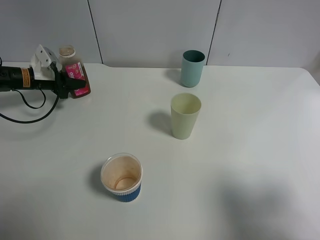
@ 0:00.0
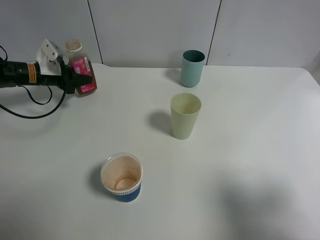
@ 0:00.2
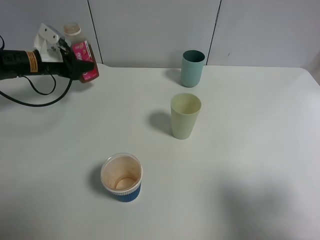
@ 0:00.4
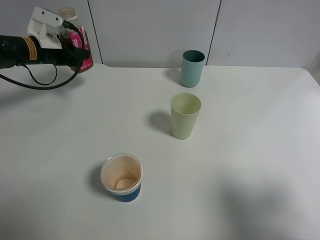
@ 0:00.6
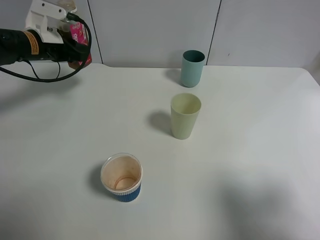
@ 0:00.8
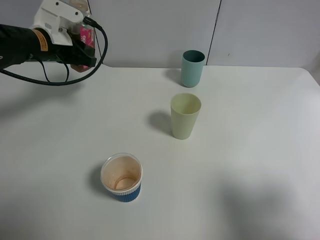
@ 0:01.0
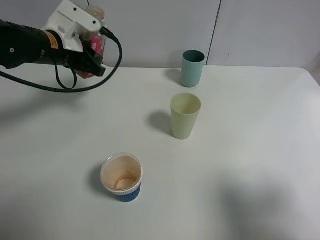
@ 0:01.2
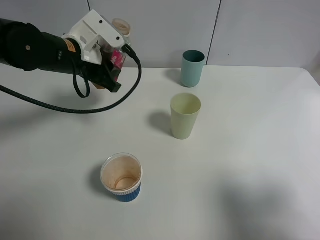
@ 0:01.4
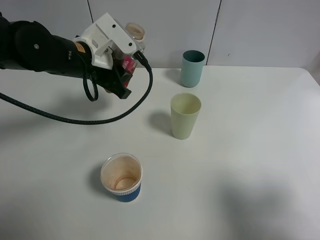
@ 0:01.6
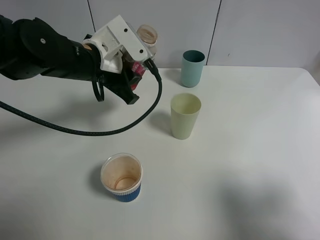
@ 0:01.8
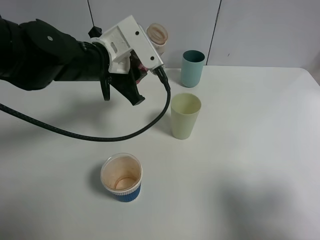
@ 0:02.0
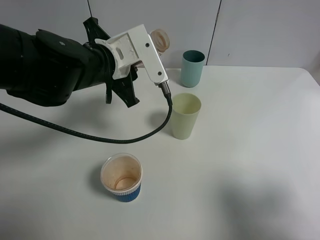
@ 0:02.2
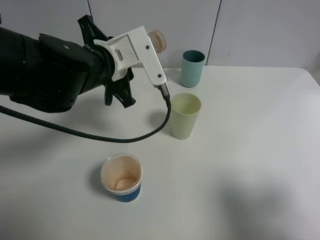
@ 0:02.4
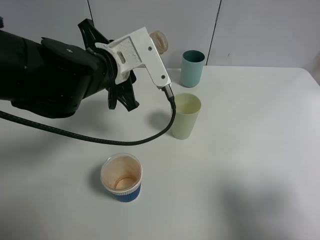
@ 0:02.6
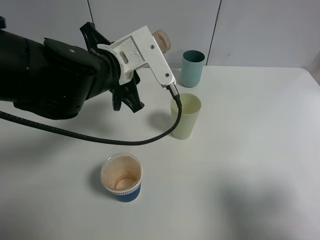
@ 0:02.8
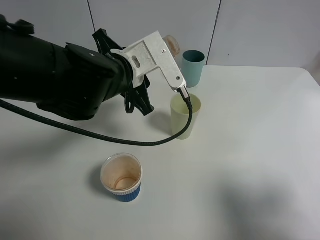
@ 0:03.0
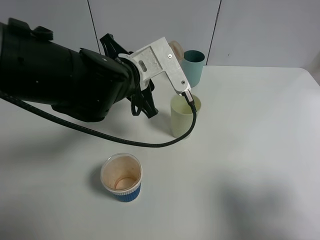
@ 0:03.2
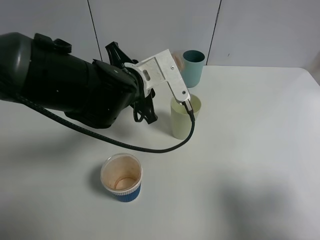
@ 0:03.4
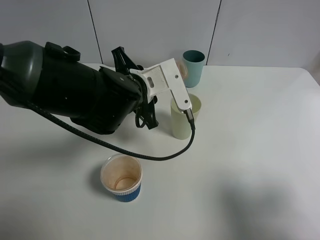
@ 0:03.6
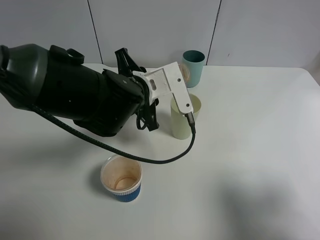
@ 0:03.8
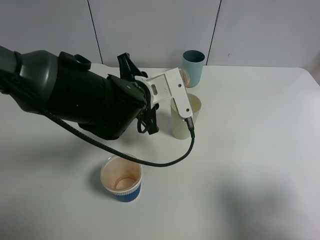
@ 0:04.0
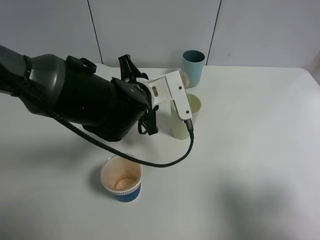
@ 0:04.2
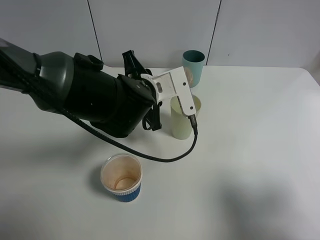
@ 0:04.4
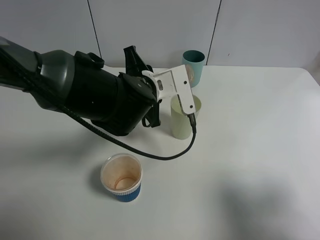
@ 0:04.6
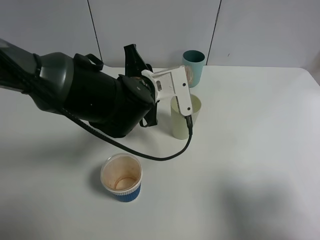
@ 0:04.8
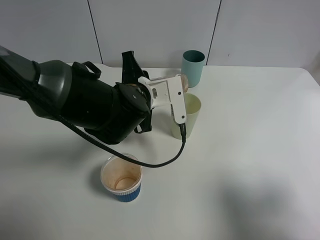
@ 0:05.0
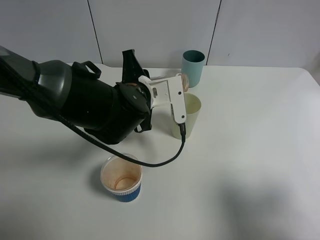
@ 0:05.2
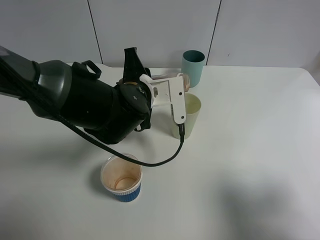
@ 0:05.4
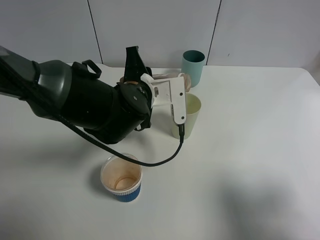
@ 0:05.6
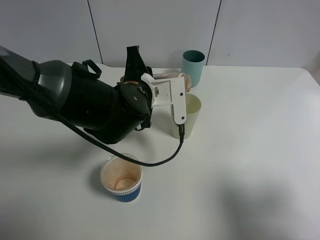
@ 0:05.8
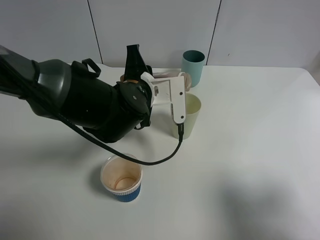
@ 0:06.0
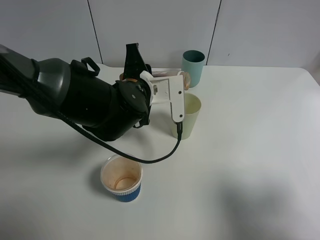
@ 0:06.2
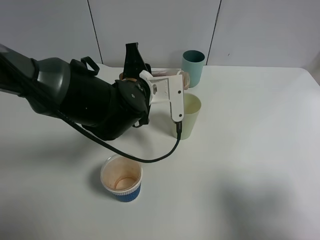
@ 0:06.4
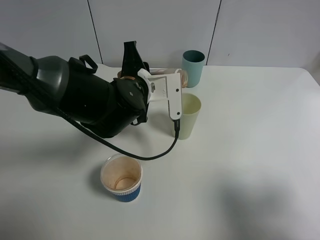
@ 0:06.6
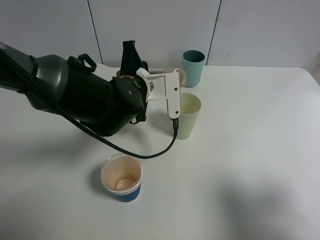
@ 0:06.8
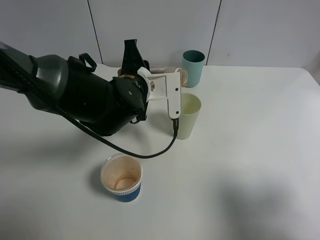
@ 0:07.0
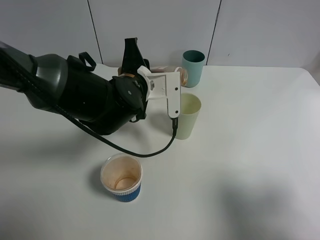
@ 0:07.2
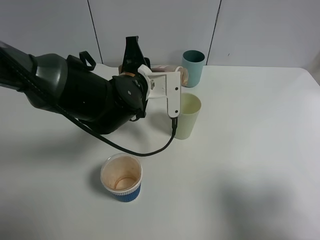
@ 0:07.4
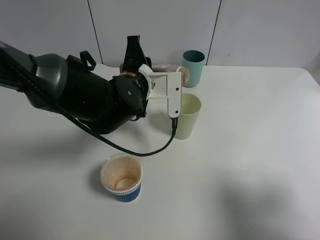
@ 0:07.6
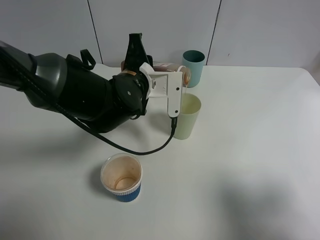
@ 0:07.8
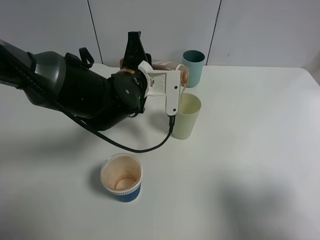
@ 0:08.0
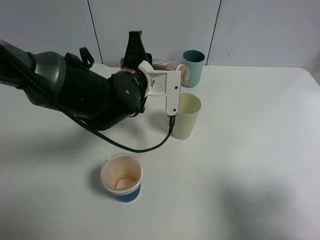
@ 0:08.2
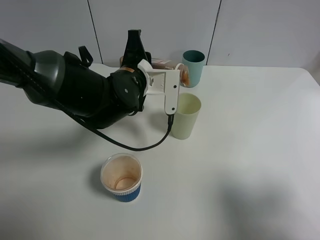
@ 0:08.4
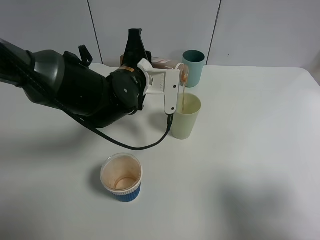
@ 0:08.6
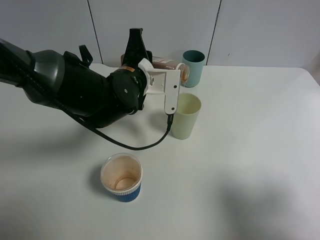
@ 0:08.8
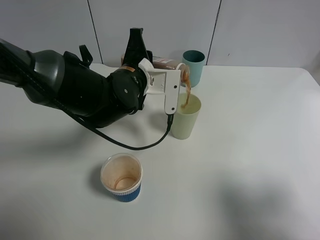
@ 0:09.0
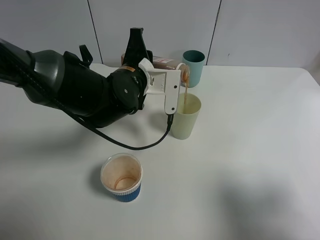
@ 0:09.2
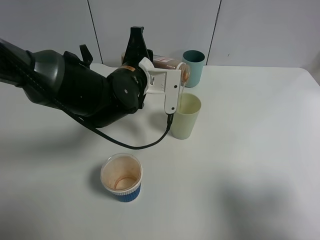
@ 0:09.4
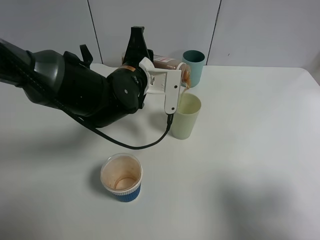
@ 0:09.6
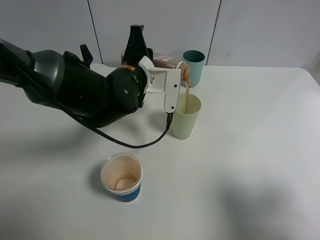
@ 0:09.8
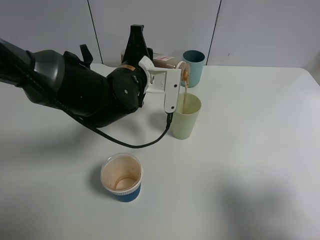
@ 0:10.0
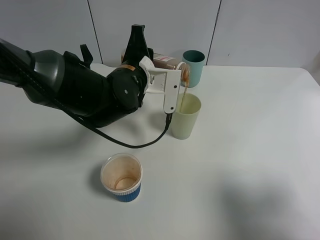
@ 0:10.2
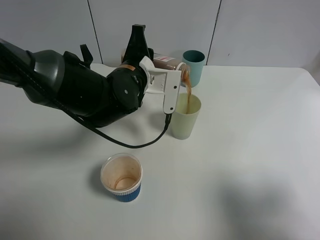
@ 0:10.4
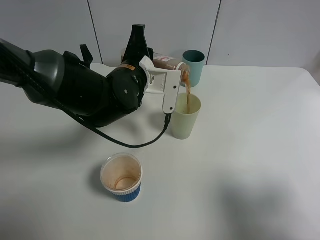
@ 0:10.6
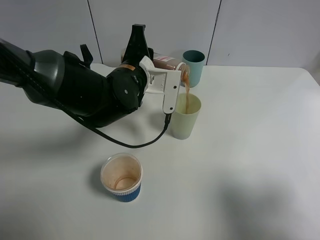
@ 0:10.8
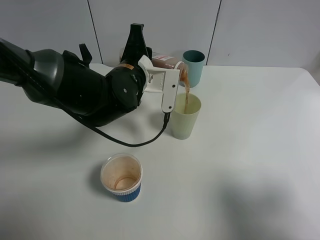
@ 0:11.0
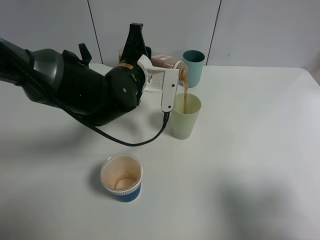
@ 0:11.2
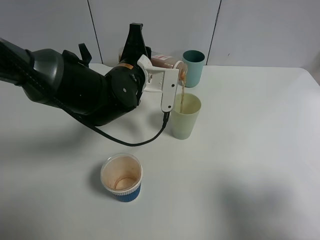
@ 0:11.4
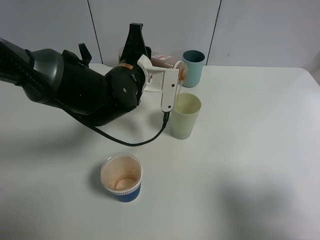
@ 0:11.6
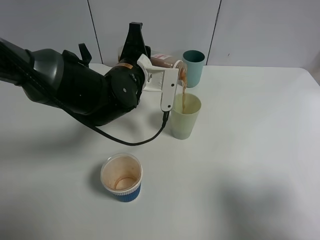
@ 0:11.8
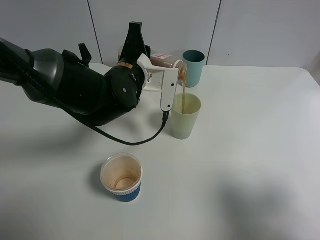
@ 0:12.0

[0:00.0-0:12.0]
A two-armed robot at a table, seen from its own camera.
Task of the whole recording: use a gripper to hold the bottle of the drink and pour it into a random cup.
0:00.0 to 0:01.6: The left gripper moves to the right, upward and backward, roughly 30 cm.
0:01.6 to 0:03.0: The left gripper heads to the right, covering roughly 5 cm.
0:03.0 to 0:04.4: The left gripper ends up some 5 cm from where it was.
0:04.4 to 0:06.0: The grippers make only small movements.
0:06.0 to 0:09.0: There are only small adjustments of the grippers.
0:09.0 to 0:10.4: Both grippers stay put.
0:10.4 to 0:12.0: Neither gripper changes place.

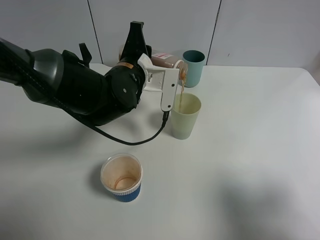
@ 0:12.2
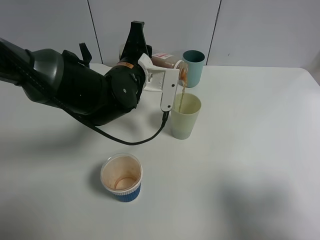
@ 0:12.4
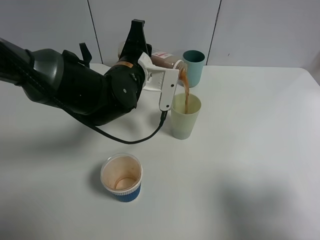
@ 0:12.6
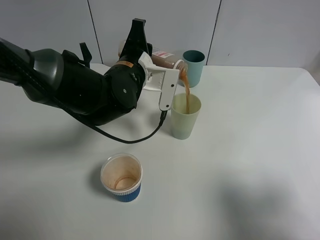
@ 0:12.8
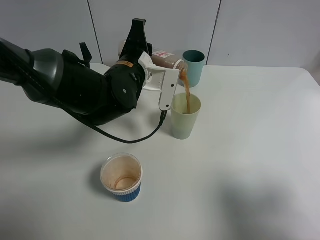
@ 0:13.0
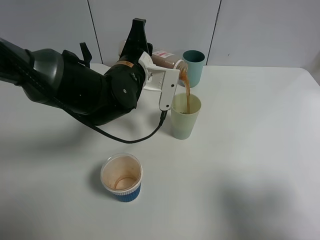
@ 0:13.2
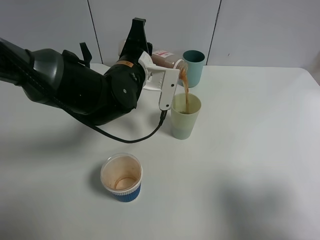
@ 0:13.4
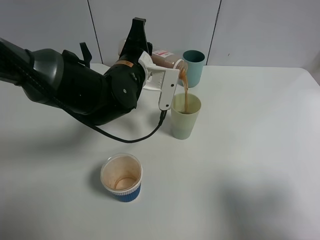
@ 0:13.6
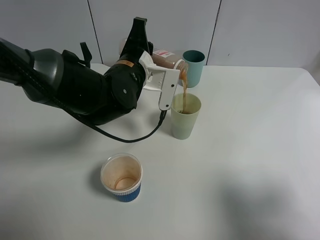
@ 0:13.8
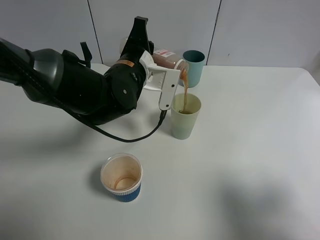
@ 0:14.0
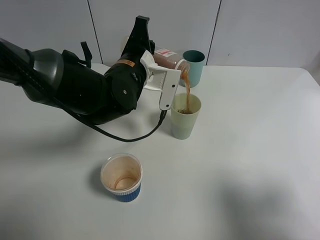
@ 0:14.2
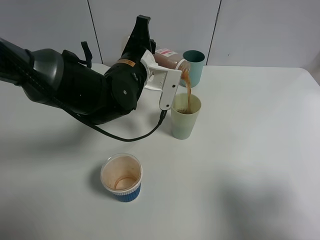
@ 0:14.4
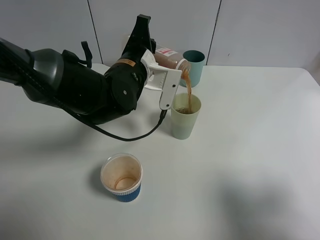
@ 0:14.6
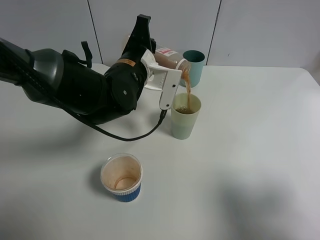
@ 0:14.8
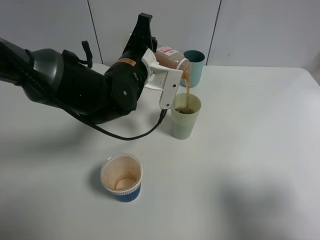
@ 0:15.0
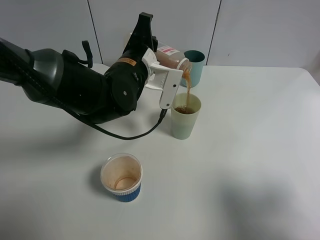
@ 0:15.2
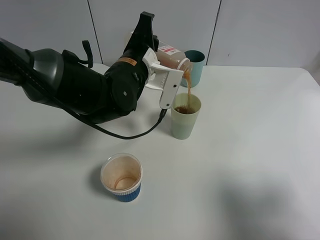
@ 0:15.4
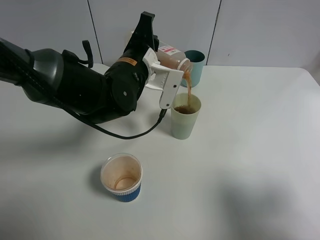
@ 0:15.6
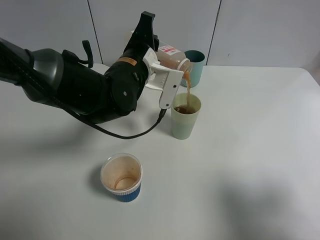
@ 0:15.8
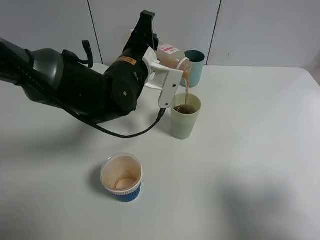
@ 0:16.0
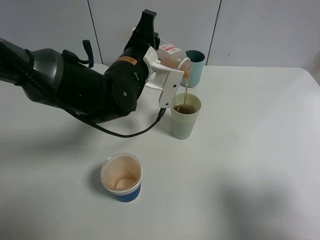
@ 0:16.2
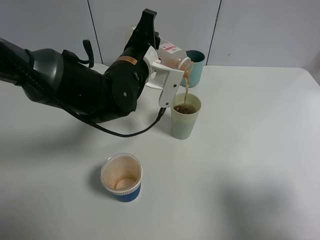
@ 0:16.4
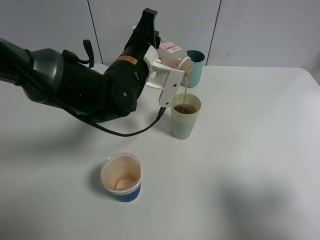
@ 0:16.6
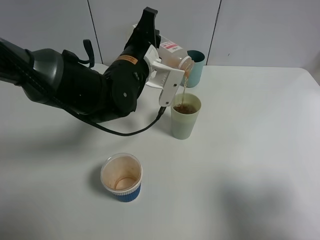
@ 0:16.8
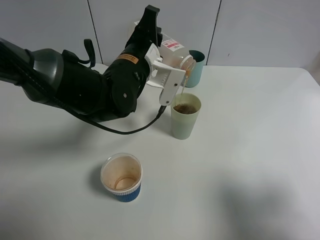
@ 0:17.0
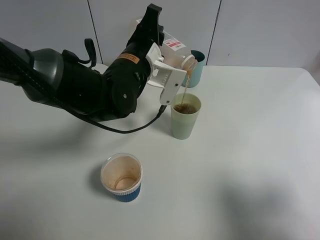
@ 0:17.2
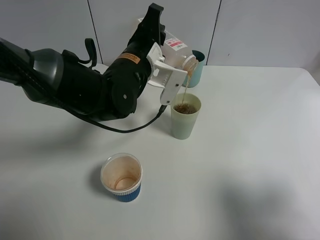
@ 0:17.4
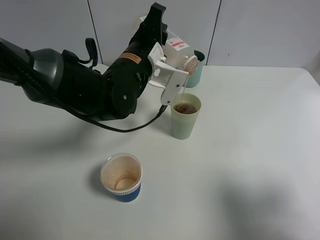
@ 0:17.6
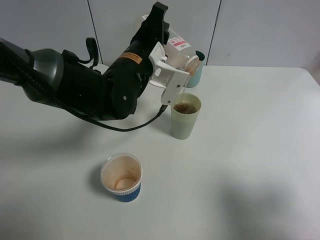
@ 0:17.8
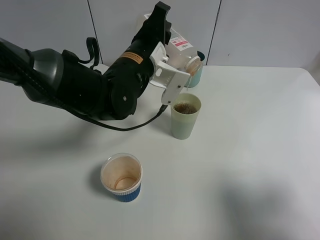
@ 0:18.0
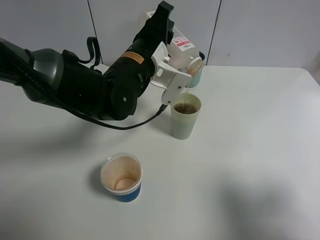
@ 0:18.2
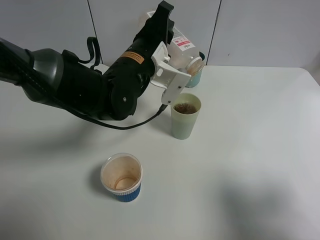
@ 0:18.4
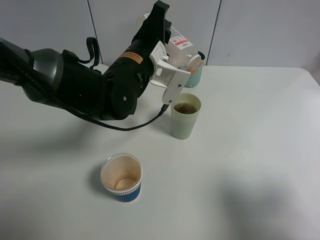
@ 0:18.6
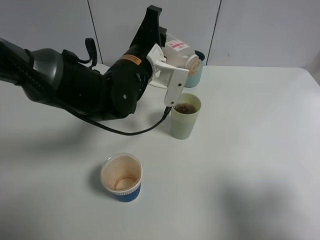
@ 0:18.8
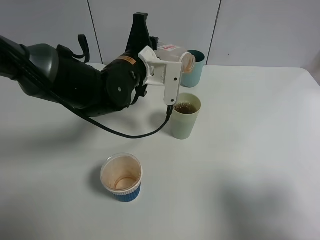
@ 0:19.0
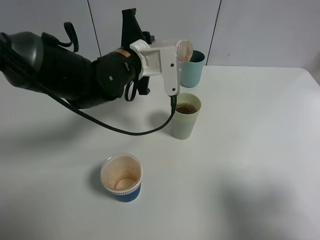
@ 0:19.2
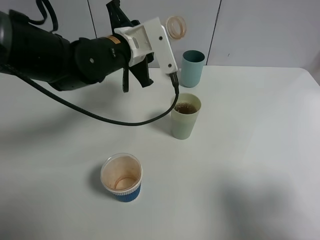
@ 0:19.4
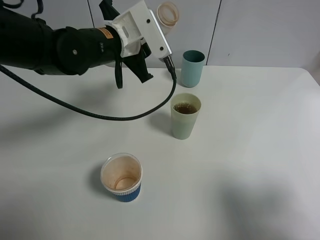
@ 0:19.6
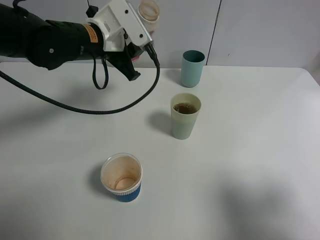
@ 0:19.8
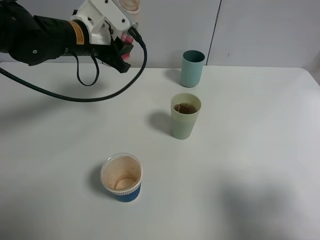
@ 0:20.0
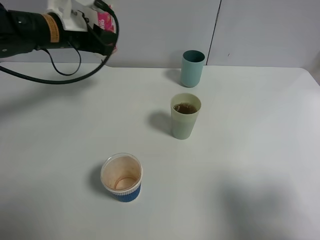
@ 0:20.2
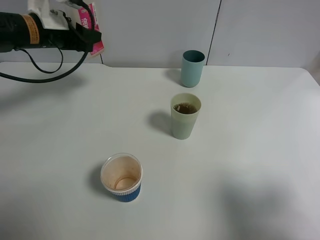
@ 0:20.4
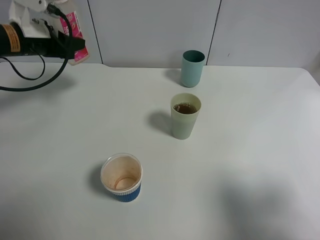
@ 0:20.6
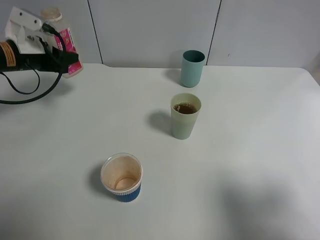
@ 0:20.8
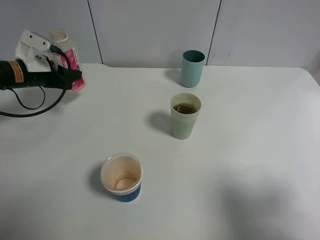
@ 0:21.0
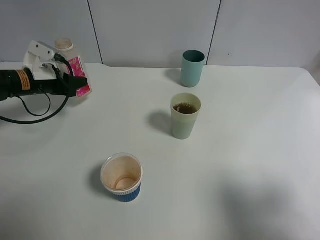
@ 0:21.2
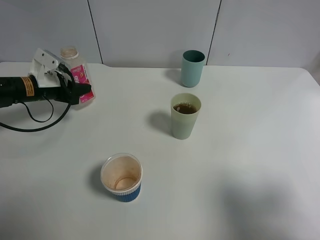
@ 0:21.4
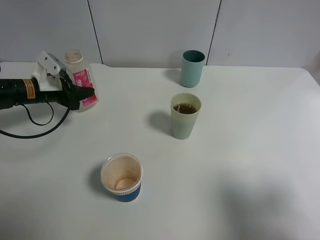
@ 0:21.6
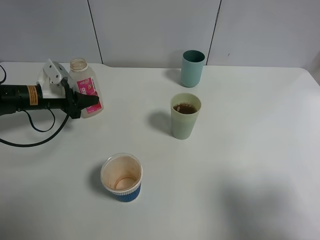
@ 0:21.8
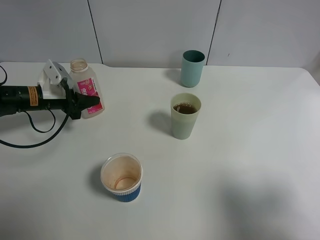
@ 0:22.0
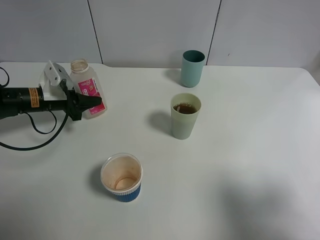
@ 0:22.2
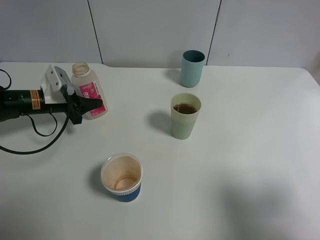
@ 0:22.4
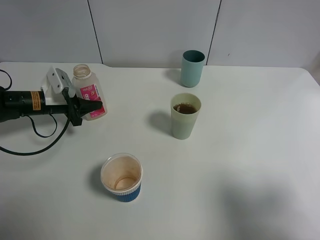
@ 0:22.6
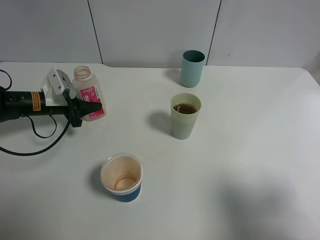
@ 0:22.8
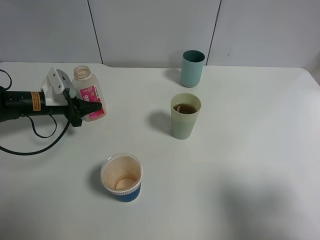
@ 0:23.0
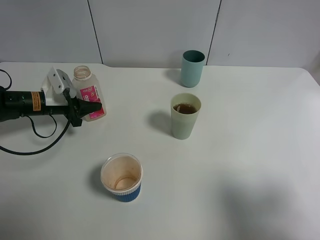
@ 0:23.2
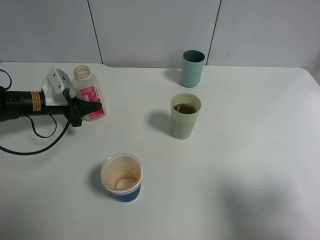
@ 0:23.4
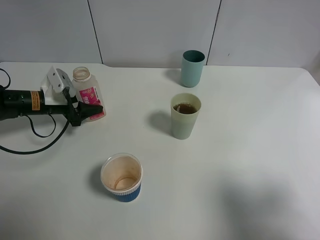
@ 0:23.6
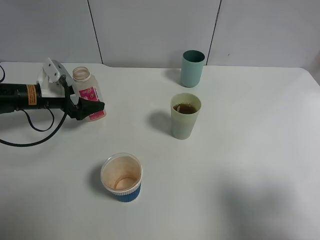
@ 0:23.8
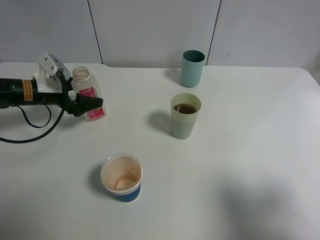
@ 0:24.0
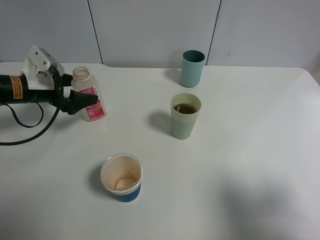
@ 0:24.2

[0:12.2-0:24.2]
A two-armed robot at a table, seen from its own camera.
Task of the whole recording: use a gripper to hold the bottle of the drink and pour it into a random cup.
Step, 0:12.2 to 0:19.2: Pour the cranberry juice into the White Plastic Cup with the left gripper.
Step, 0:19.4 to 0:24.0: Place the cranberry juice bottle on the table with the left gripper.
0:12.2 to 0:15.2: There are only small adjustments of the grippers.
0:15.2 to 0:16.6: Neither gripper changes place.
0:16.6 to 0:18.2: The grippers make only small movements.
0:18.2 to 0:19.8: The left gripper shifts about 10 cm to the left.
0:19.8 to 0:21.2: The left gripper goes approximately 20 cm to the left and downward.
0:21.2 to 0:22.6: The left gripper ends up about 5 cm from where it was.
0:22.6 to 0:24.2: The left gripper travels upward by some 5 cm, and opens up.
